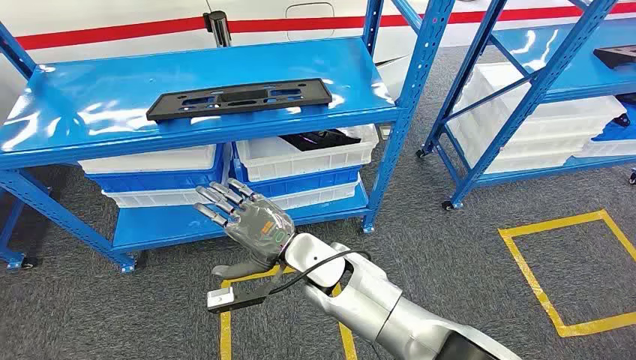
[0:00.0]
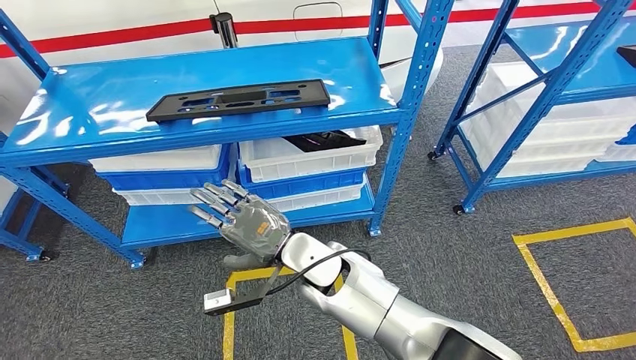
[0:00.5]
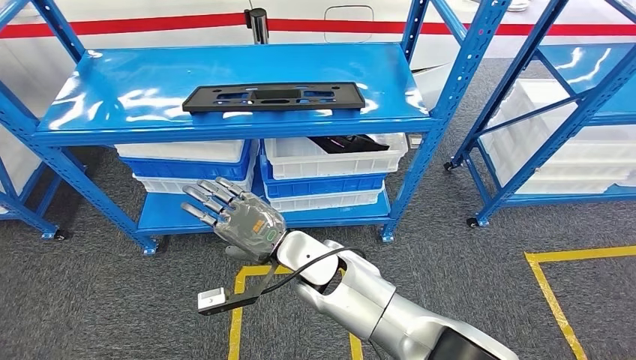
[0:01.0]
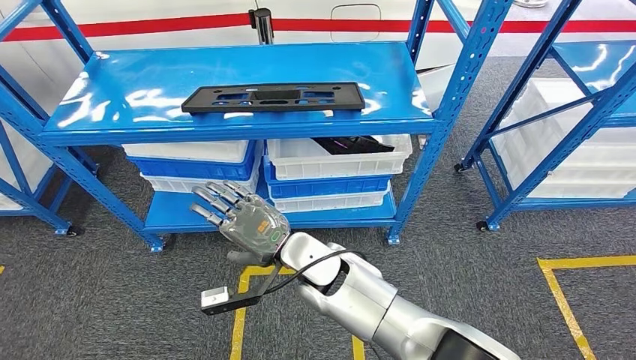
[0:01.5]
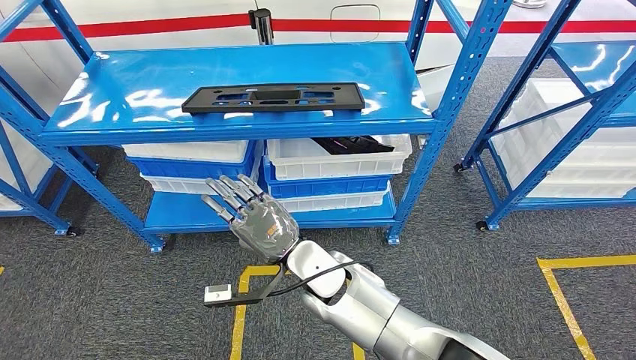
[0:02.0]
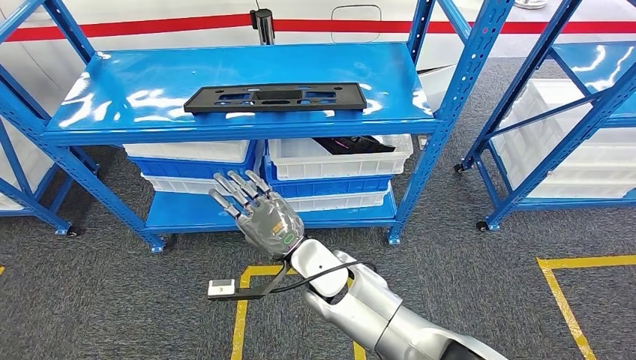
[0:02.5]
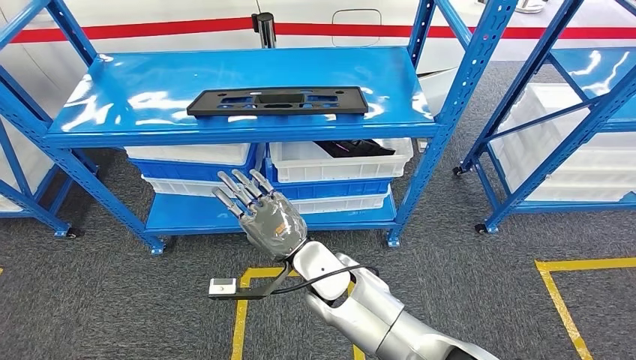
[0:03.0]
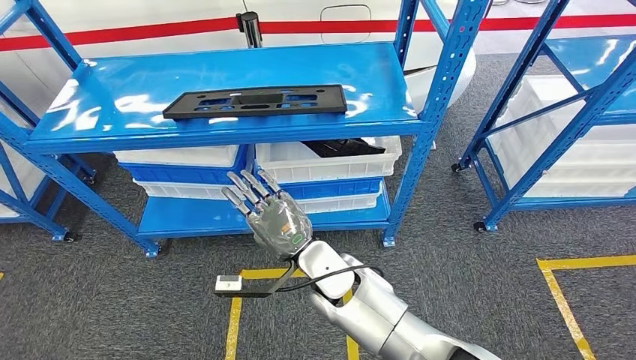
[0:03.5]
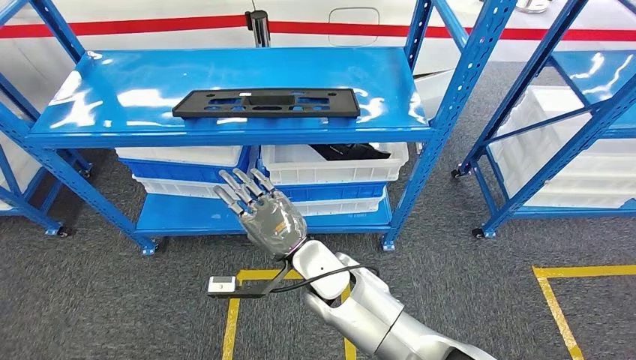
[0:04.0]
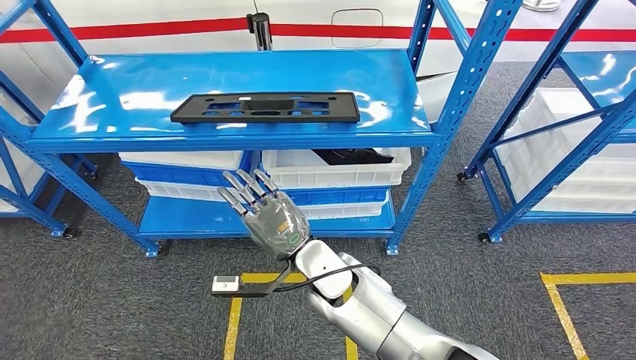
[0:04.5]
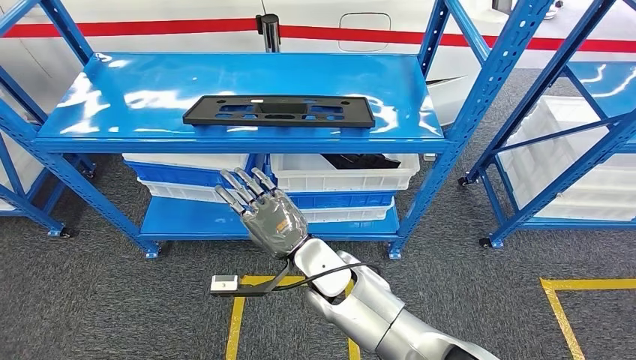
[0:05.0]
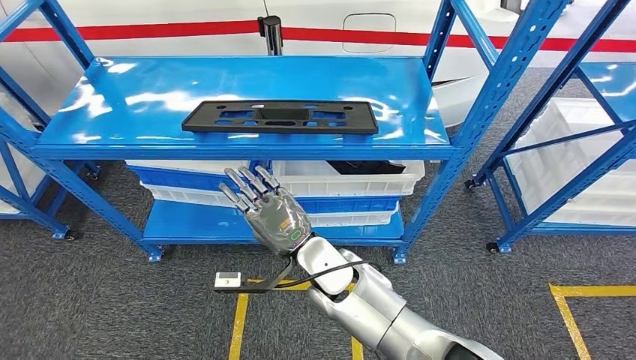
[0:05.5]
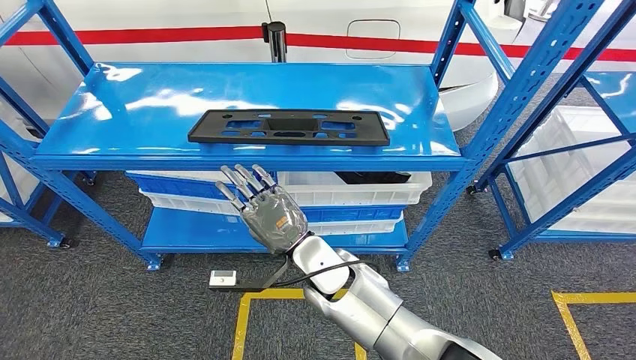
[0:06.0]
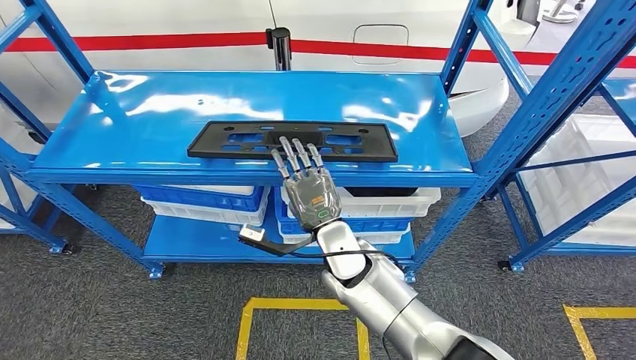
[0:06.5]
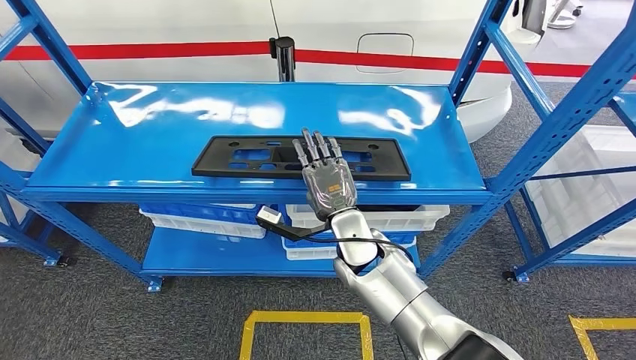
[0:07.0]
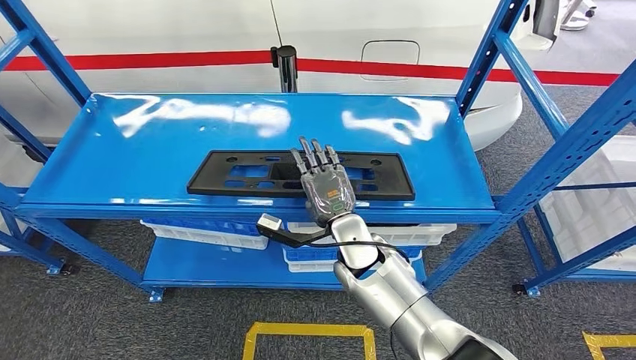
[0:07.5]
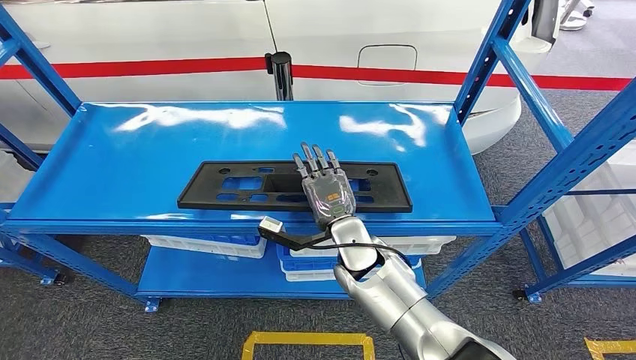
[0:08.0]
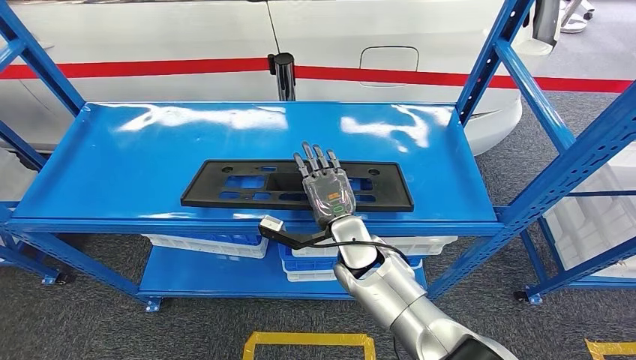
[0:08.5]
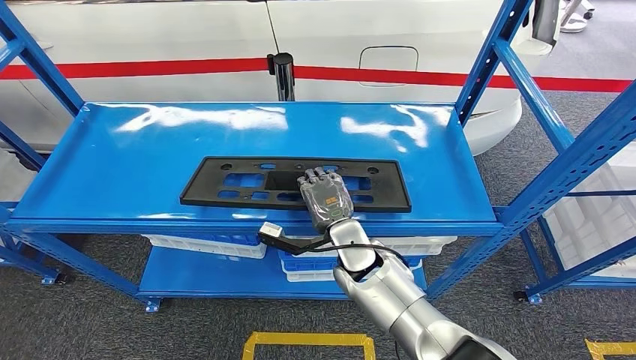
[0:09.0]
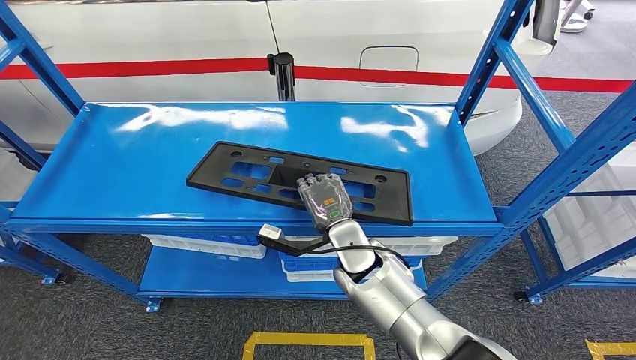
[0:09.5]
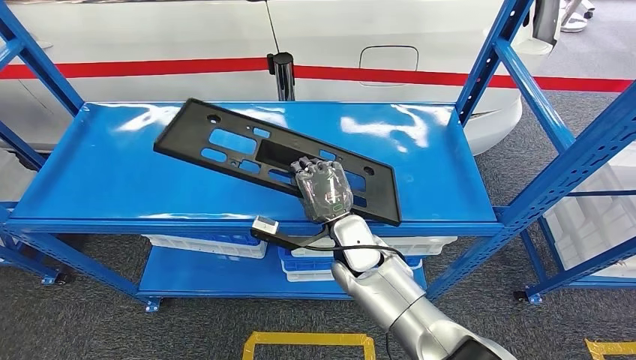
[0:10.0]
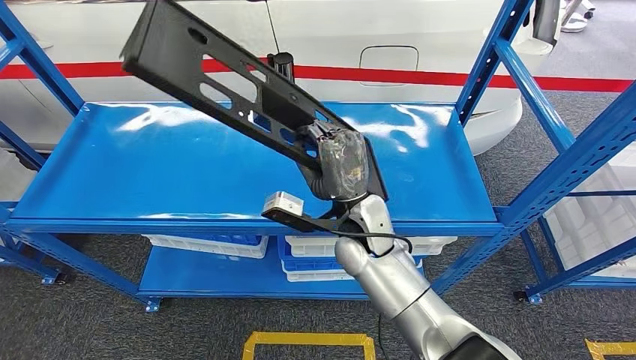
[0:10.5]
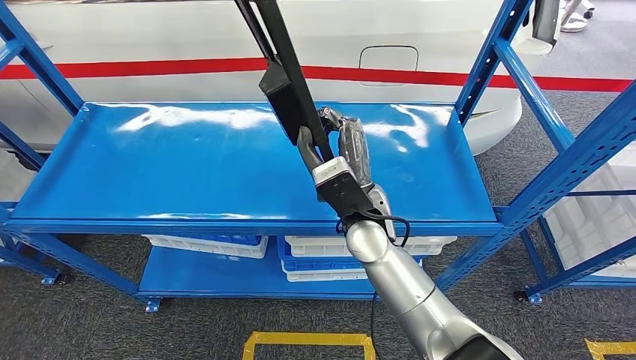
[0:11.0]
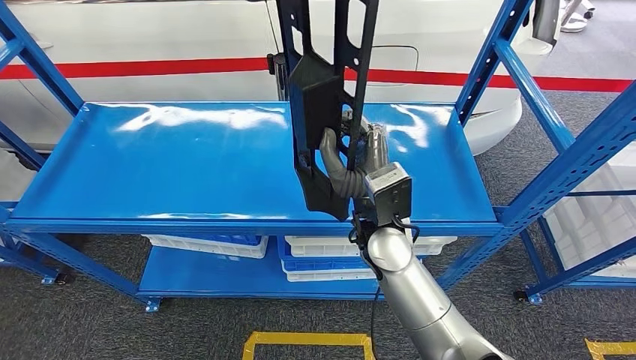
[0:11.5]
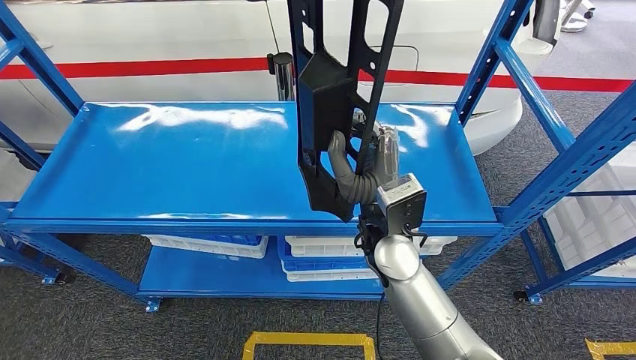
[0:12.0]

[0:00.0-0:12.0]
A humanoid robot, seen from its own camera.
0:08.0 to 0:10.0: The hands stay close to where they were, moving slightly.
0:10.0 to 0:12.0: The right hand travels upward by roughly 10 cm.

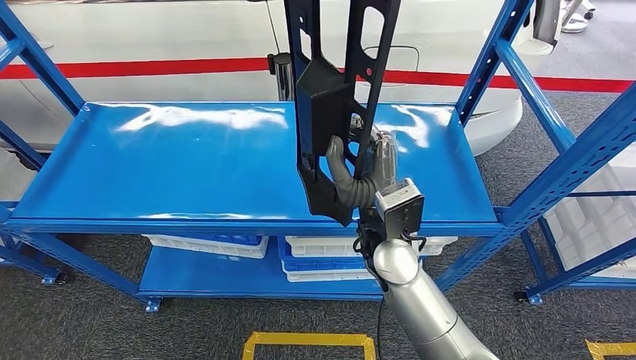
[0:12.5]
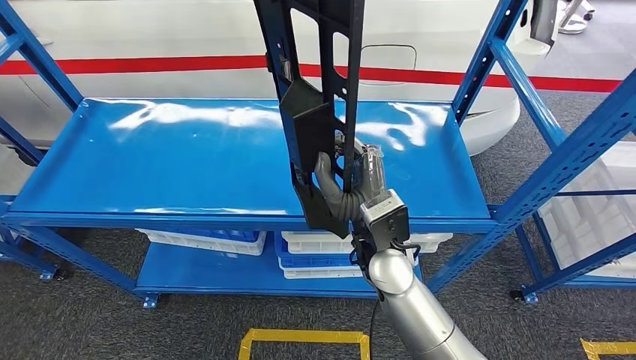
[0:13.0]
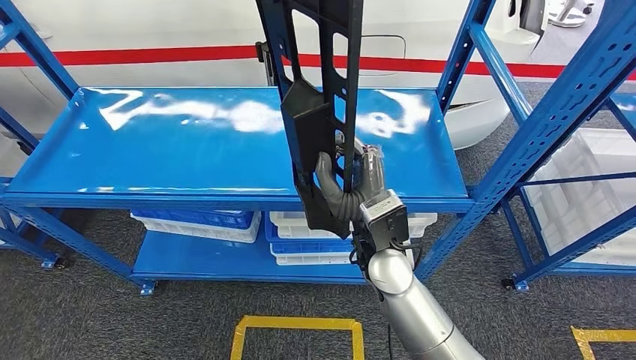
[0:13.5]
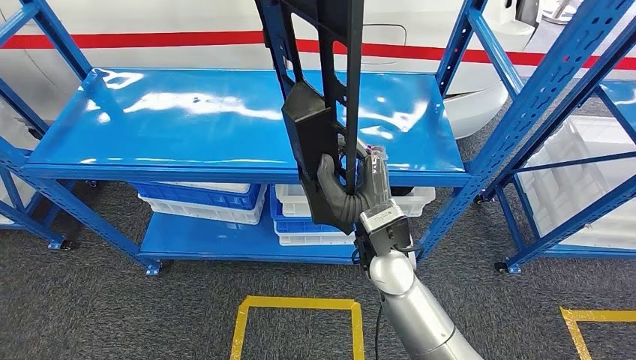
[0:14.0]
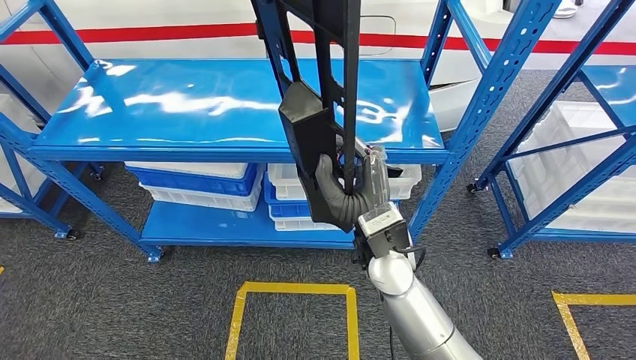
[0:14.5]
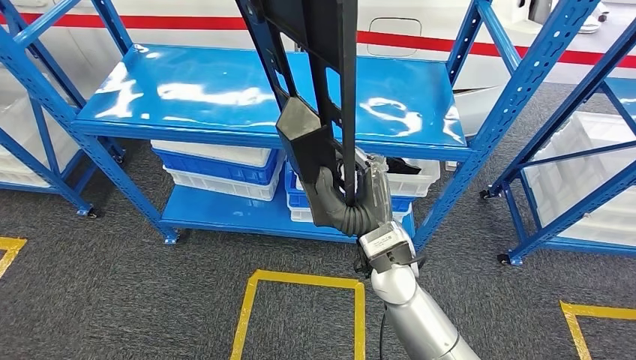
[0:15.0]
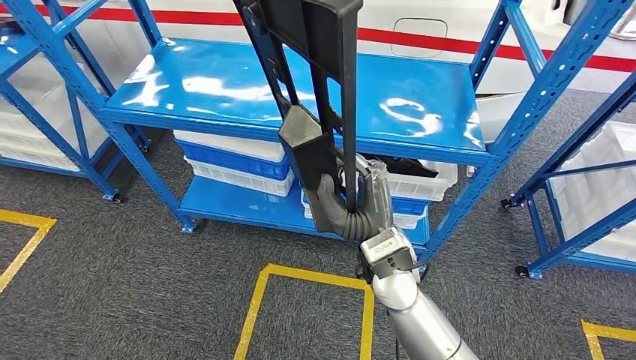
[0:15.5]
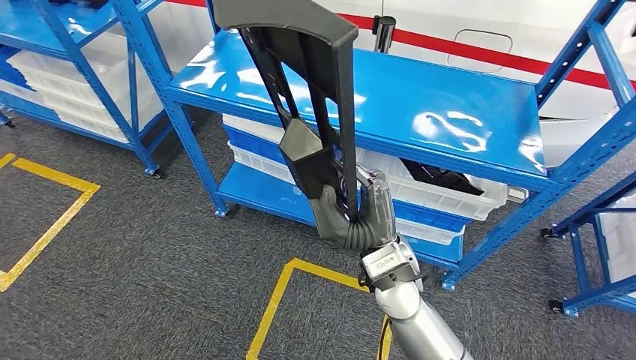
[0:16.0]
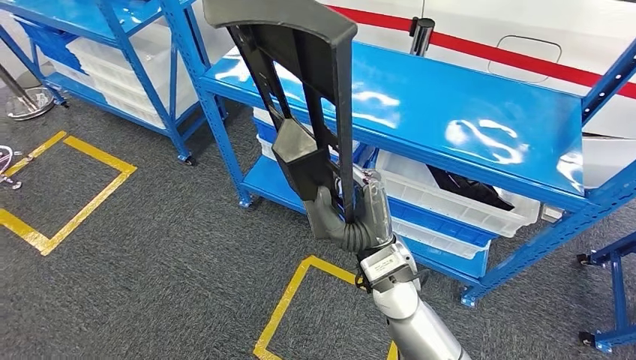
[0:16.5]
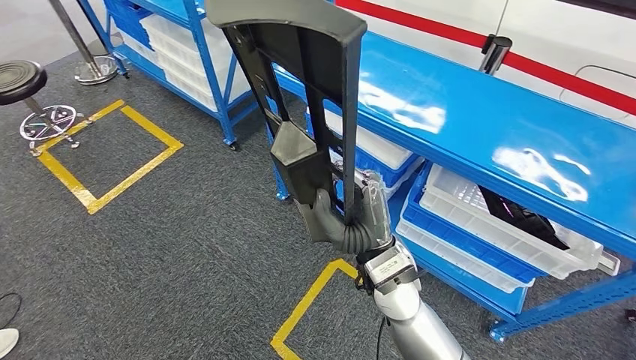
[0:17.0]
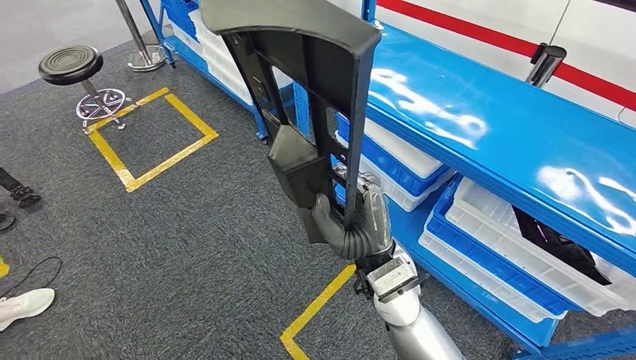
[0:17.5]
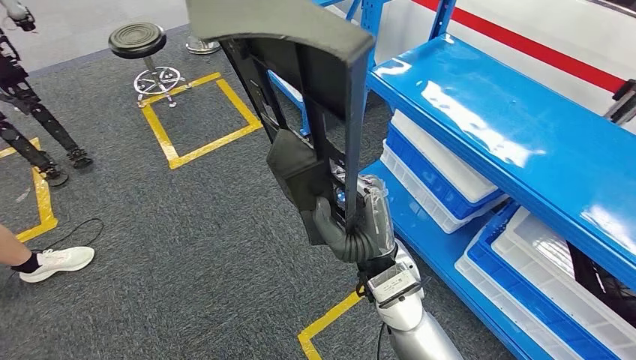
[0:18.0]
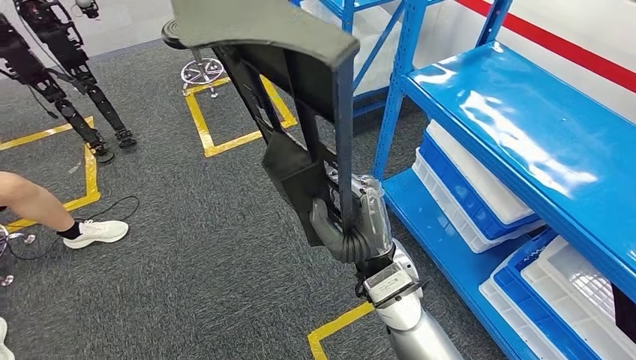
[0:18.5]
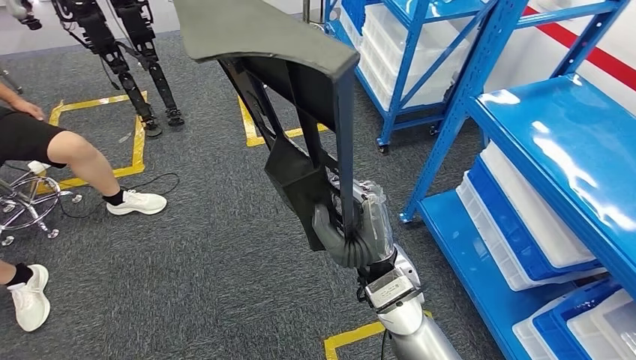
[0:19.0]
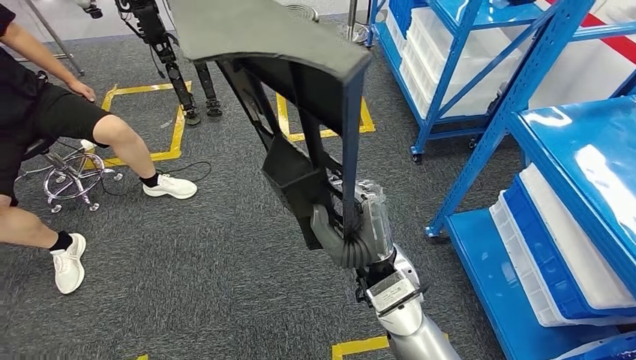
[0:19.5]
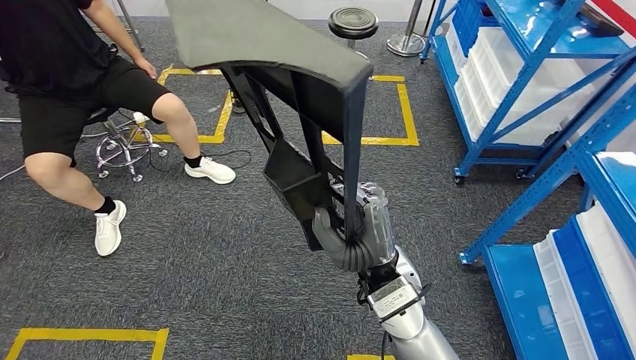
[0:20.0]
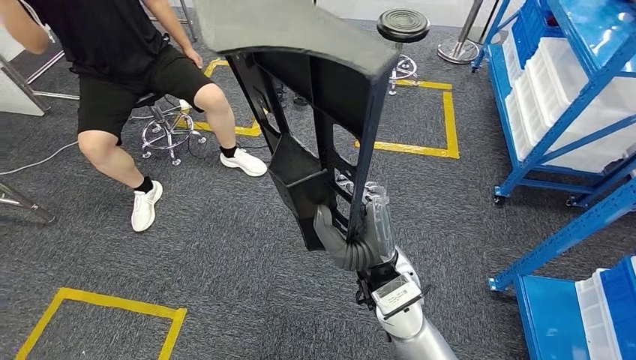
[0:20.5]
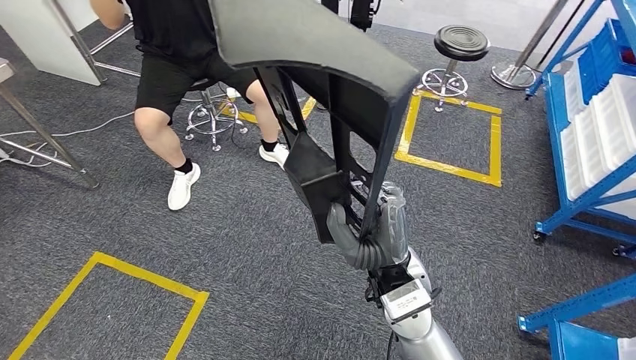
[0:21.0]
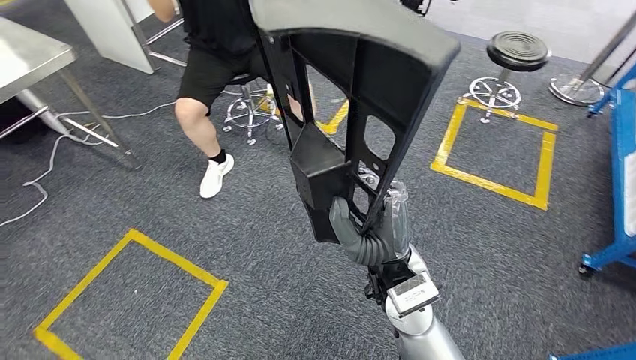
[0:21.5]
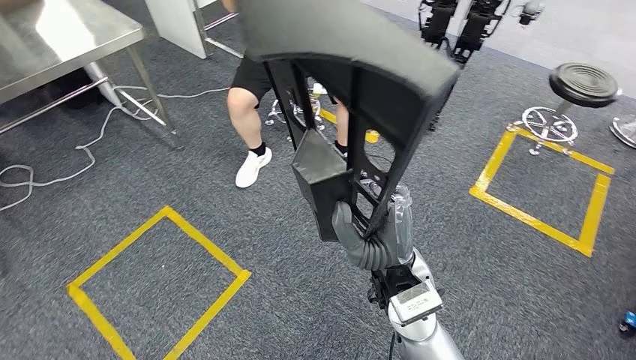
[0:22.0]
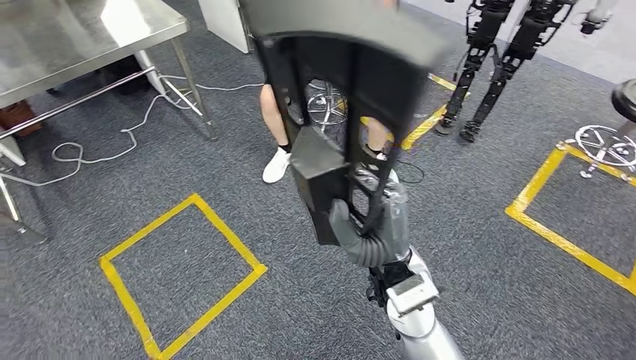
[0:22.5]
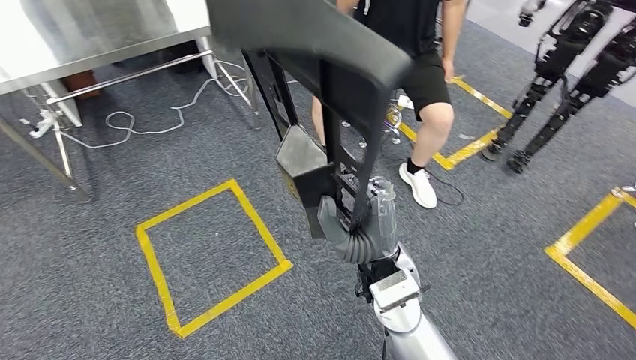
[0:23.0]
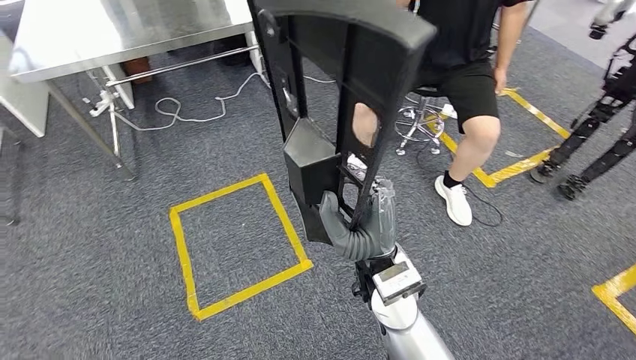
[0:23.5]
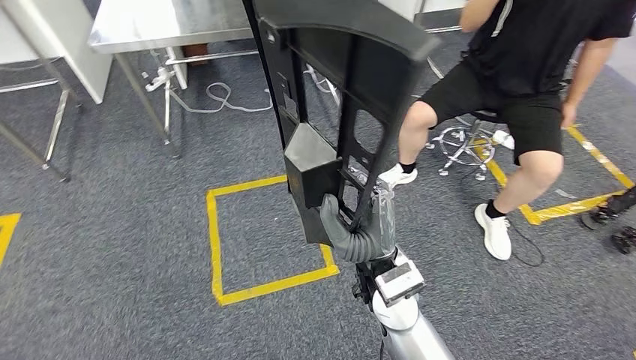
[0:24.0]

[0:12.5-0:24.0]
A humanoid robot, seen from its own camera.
Step, 0:12.5 to 0:15.5: Pick up the large parts from the shelf.
